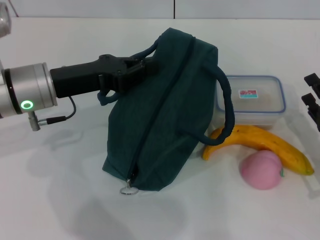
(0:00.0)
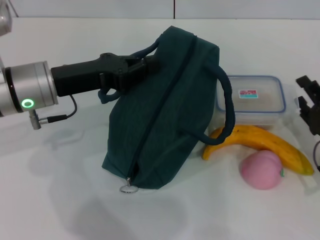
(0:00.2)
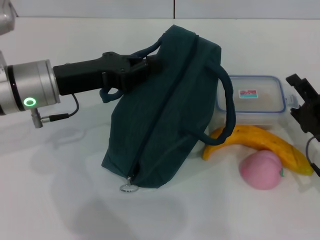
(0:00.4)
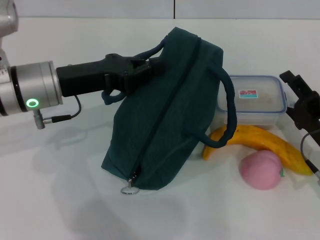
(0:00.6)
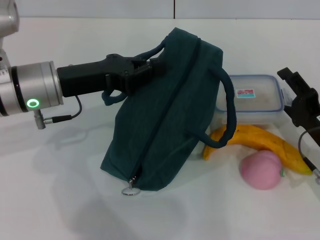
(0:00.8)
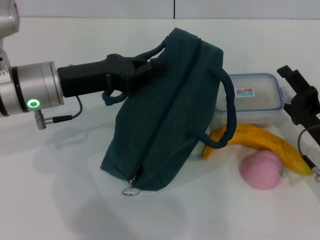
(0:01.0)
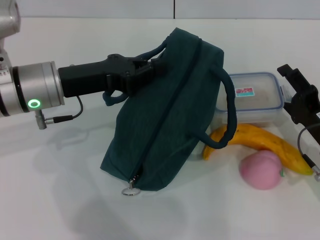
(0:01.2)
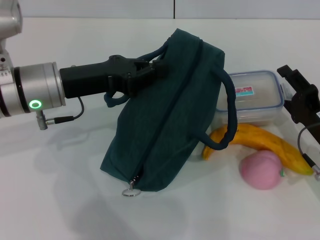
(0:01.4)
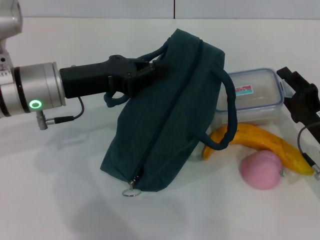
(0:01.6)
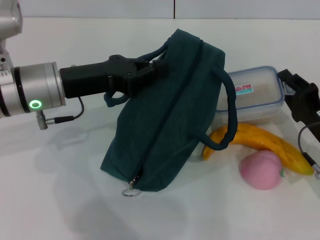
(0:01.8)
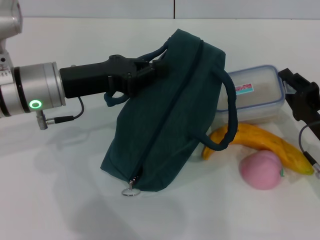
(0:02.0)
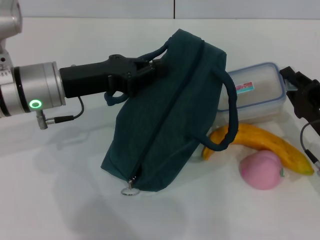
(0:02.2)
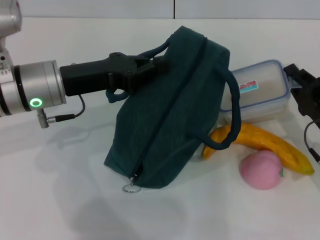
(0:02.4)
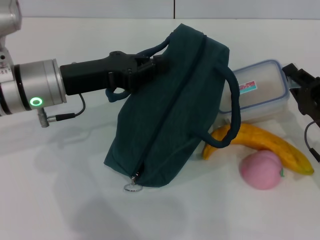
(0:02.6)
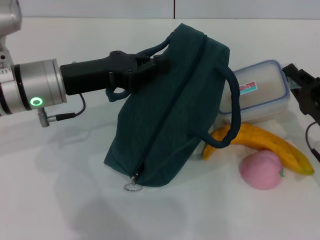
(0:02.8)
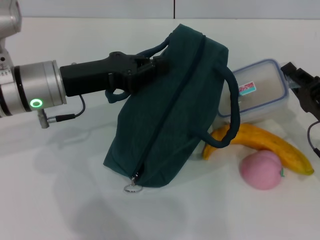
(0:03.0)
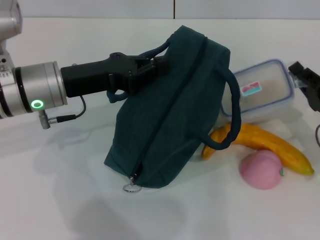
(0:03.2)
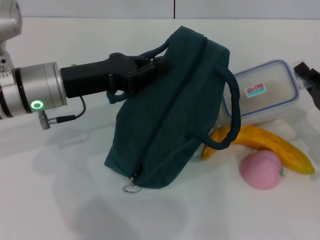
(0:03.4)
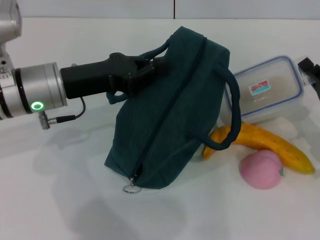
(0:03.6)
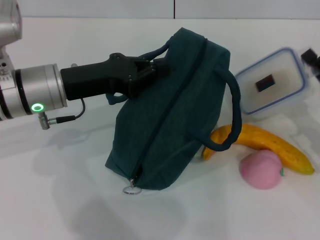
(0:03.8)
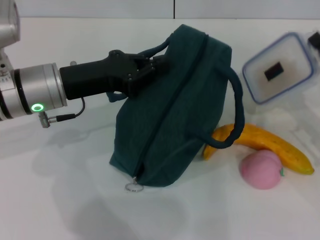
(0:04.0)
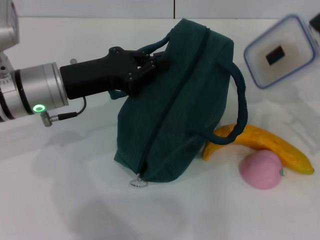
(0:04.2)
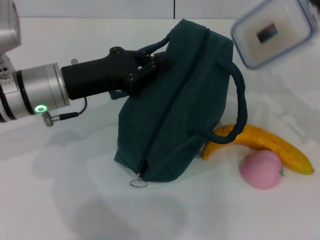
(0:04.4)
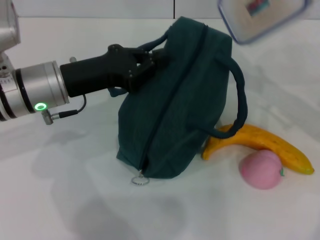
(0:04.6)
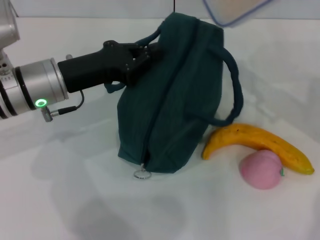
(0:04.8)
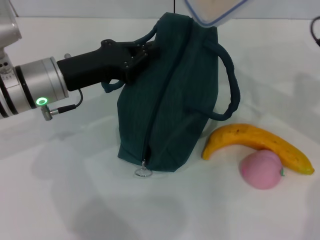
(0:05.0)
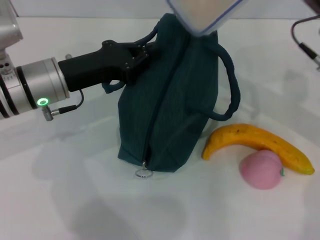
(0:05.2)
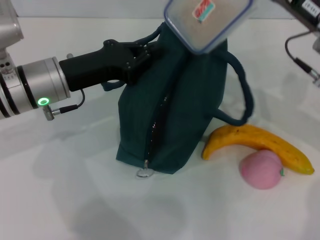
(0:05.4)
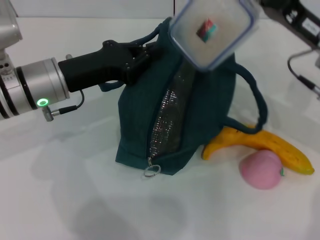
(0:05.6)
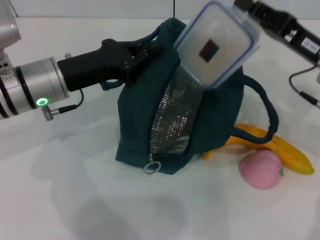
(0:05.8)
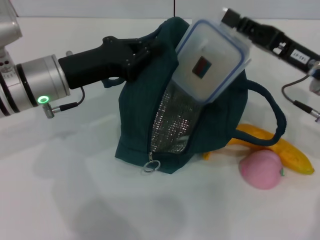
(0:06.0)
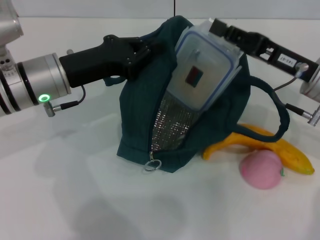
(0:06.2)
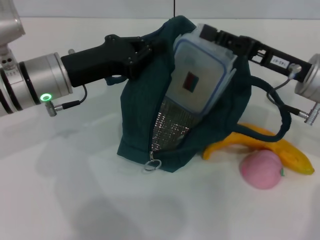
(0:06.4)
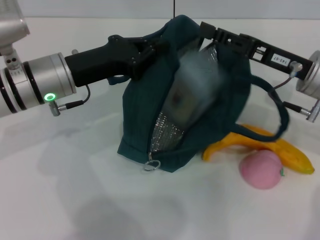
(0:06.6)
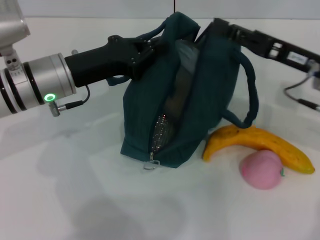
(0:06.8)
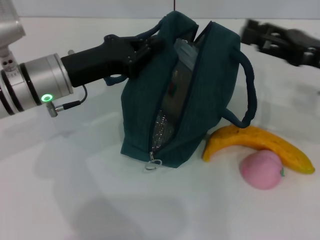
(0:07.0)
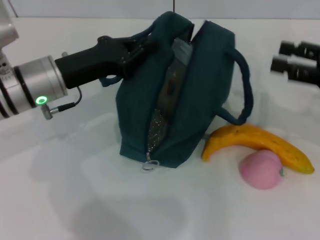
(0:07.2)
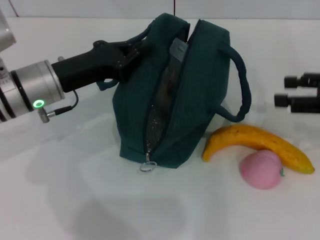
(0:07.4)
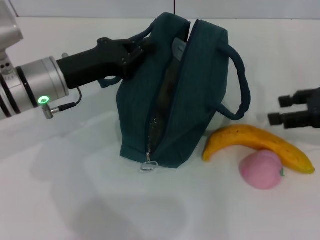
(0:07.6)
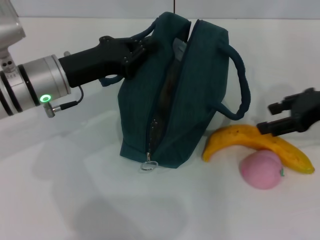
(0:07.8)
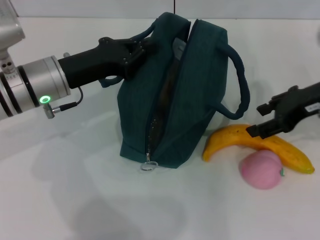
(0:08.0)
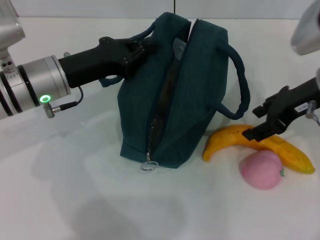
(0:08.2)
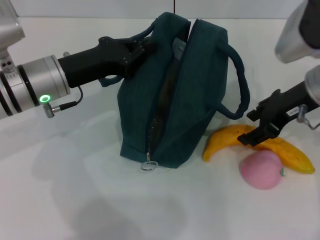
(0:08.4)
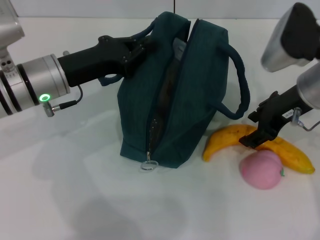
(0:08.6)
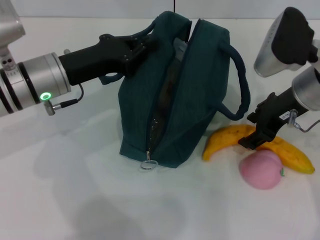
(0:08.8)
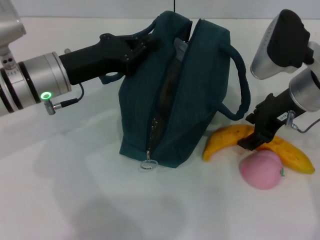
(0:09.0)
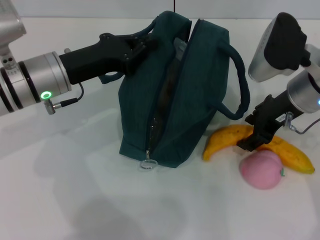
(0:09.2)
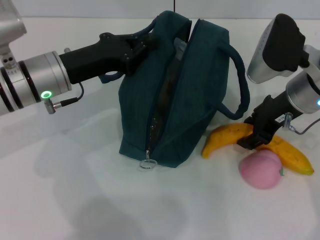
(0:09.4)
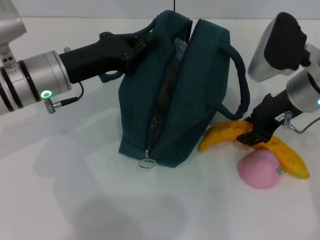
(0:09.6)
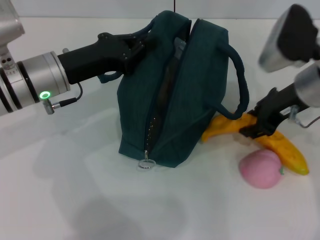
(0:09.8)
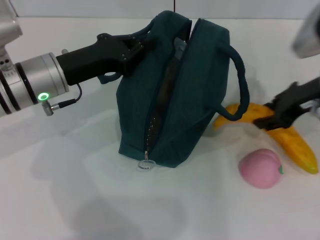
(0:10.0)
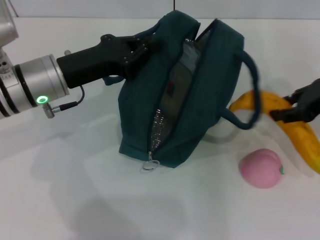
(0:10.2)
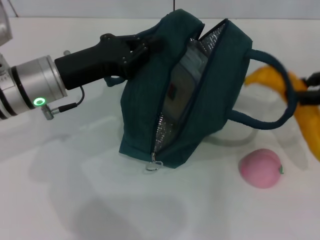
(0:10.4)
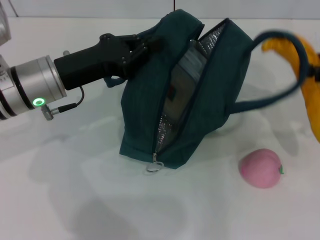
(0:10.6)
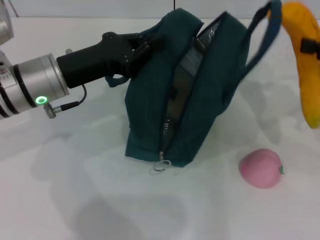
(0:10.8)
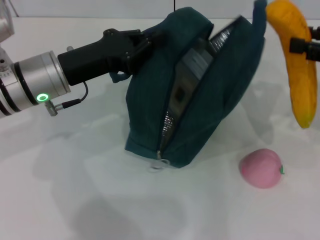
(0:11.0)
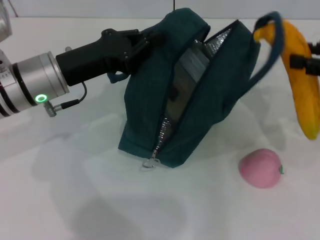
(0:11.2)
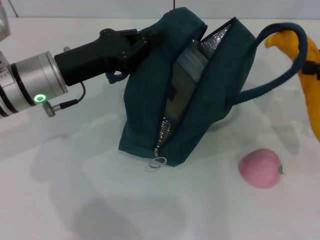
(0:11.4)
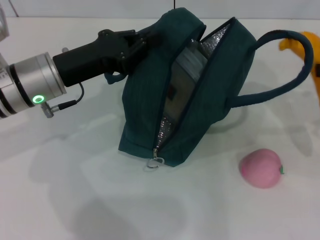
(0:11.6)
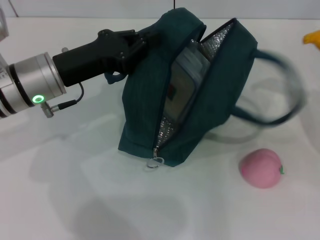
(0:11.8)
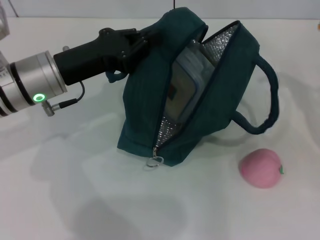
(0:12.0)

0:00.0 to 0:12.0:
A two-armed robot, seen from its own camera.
Step, 0:00.0 to 0:02.2: Pick up the lunch box with your right hand.
Step, 0:02.4 to 0:06.6: Place the lunch box into the lunch bag with your right hand.
Step, 0:06.8 to 0:09.4: Take the banana with your right hand.
0:00.0 to 0:01.6: The grippers move only a little.
0:01.6 to 0:03.0: The right gripper closes.
0:03.0 to 0:04.4: The right gripper goes some 10 cm upward.
0:04.4 to 0:06.0: The right gripper shifts some 5 cm to the left.
0:06.0 to 0:07.6: The right gripper shifts approximately 10 cm to the right, and opens its fingers.
0:07.6 to 0:09.0: The right gripper travels to the left by approximately 15 cm.
0:09.0 to 0:10.4: The right gripper shifts approximately 15 cm to the right.
0:10.4 to 0:12.0: The right gripper travels to the right by approximately 10 cm.

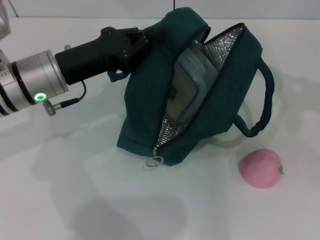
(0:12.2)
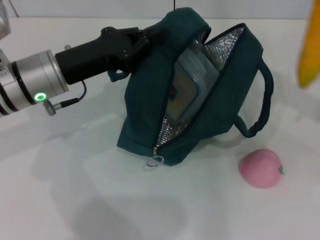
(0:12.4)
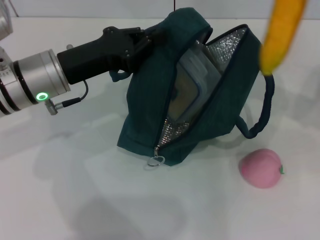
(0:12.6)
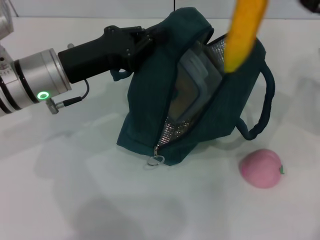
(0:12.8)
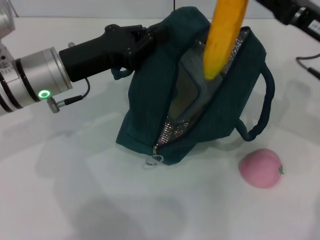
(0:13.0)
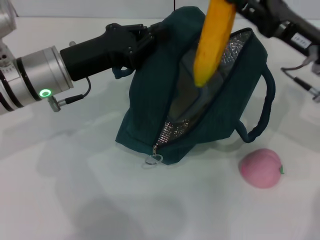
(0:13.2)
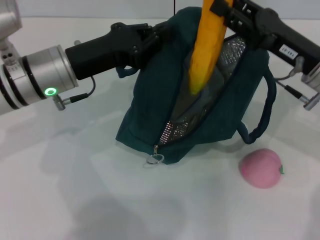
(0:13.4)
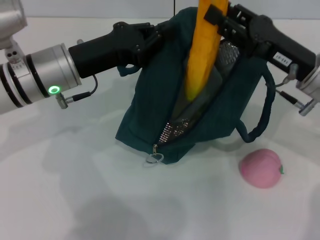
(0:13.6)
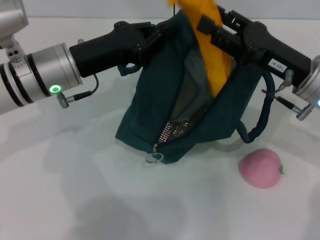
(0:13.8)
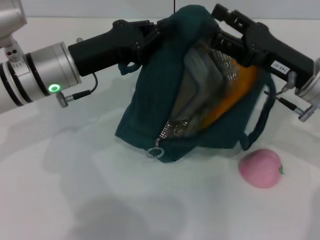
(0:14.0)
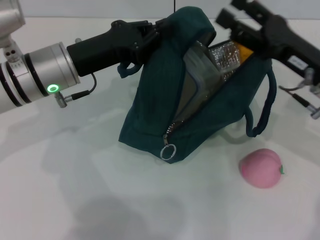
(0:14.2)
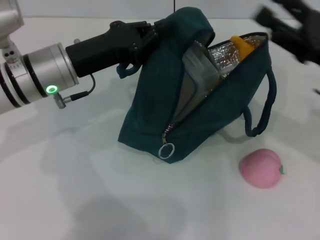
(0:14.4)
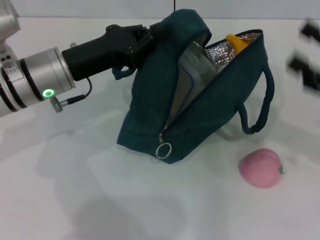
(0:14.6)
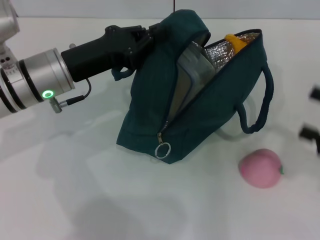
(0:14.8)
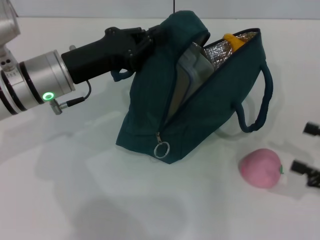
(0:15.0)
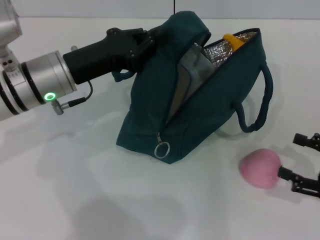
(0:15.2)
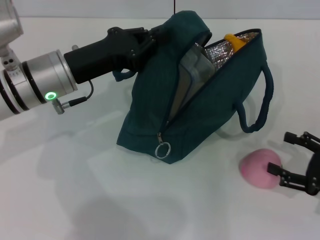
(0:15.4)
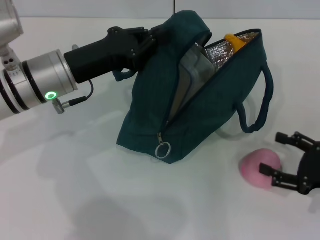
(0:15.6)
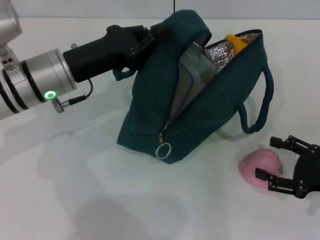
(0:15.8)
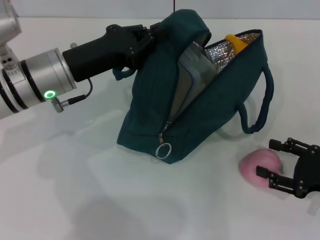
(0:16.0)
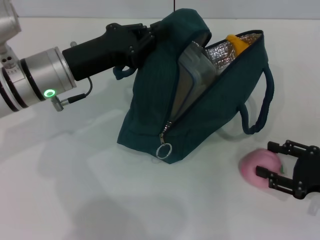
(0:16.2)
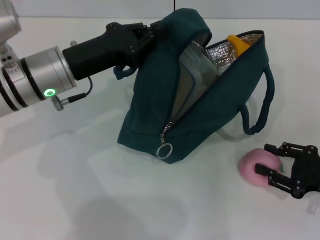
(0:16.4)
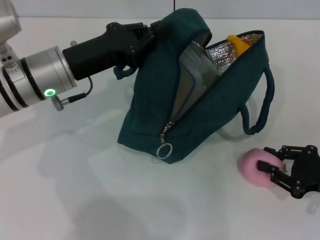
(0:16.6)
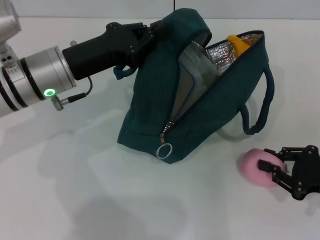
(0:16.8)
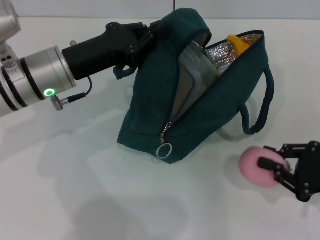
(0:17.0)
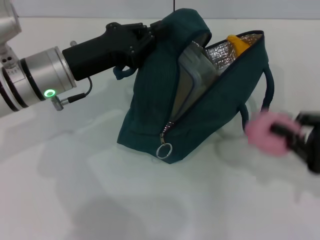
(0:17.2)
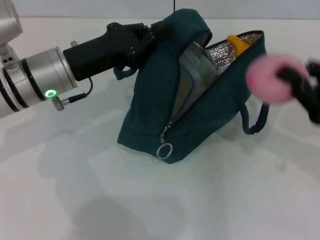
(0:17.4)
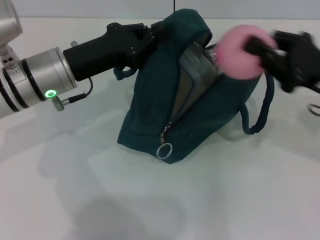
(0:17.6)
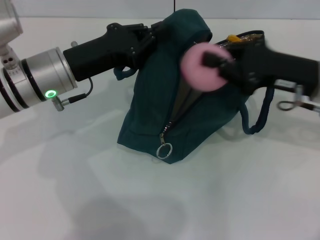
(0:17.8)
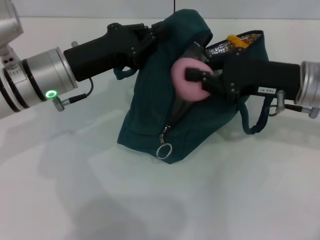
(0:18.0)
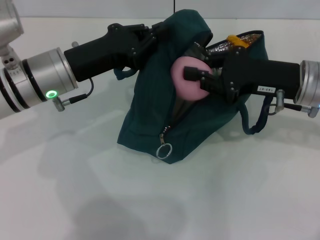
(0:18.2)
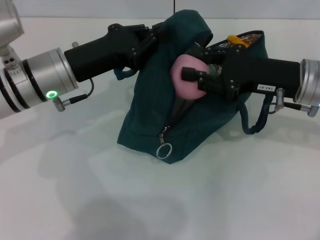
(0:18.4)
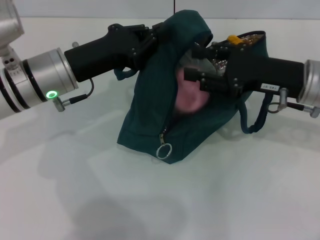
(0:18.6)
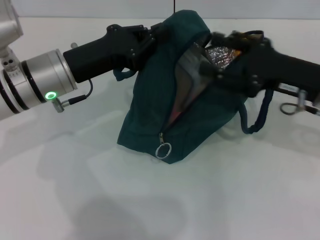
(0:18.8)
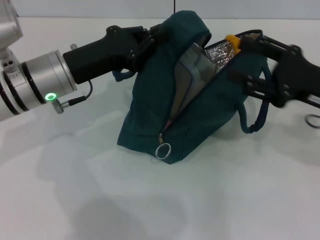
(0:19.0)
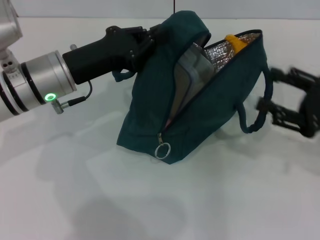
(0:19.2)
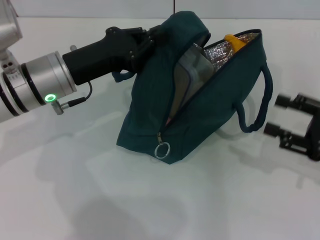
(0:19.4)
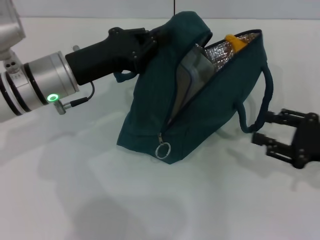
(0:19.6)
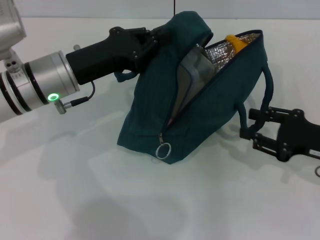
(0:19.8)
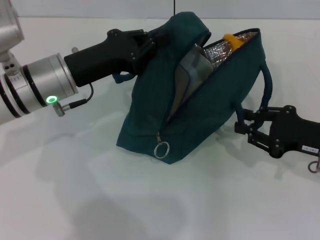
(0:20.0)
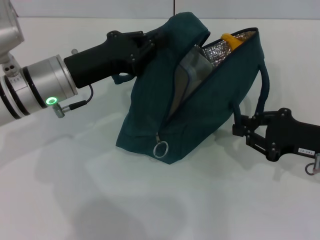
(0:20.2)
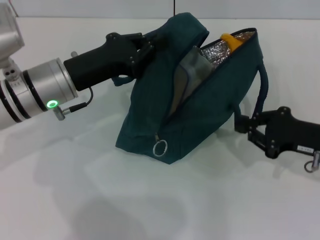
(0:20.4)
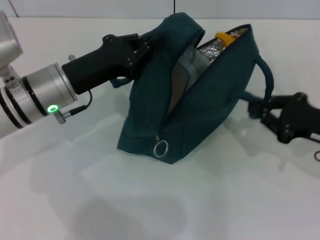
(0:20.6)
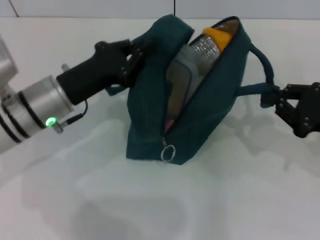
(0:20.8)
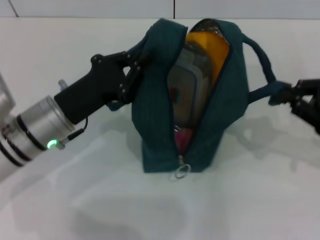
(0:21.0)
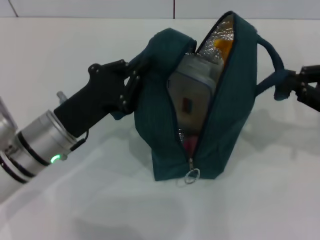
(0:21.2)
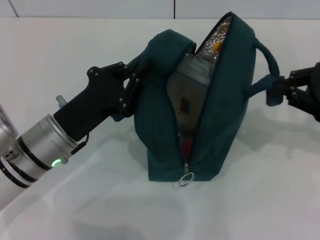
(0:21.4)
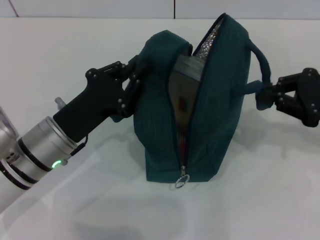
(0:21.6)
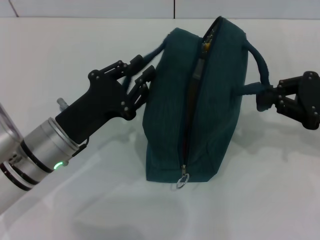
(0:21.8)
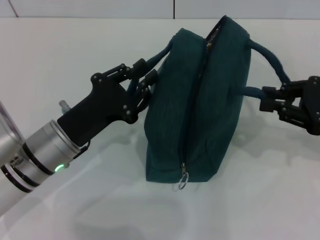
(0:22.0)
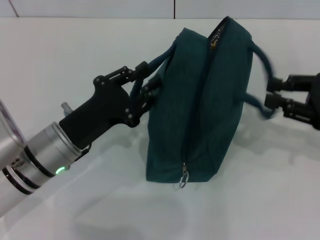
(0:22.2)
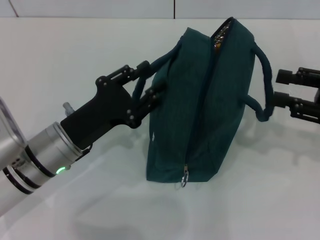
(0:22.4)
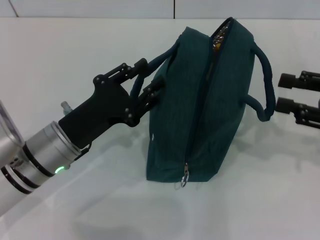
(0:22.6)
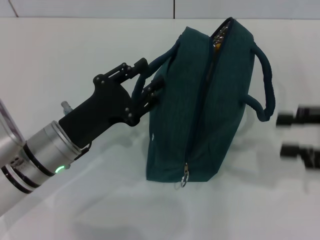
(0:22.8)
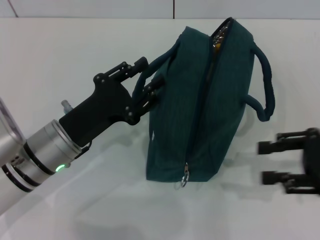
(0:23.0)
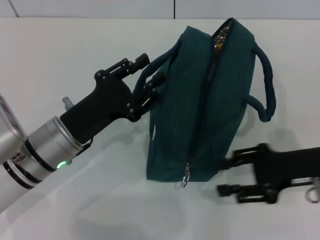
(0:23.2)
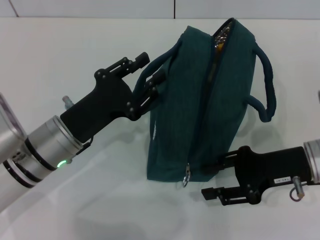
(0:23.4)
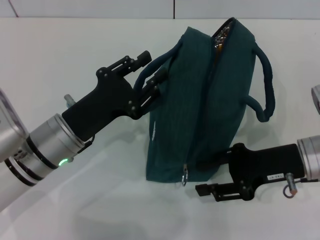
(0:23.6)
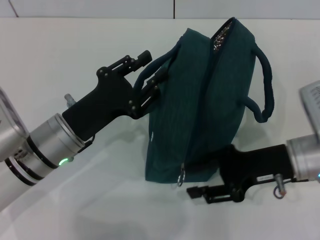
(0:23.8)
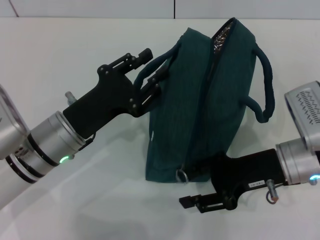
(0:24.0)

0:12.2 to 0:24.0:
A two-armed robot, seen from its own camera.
Step, 0:12.2 to 0:14.2: Put the banana into the lunch bag with your right hand.
Step, 0:14.4 to 0:16.4: Grab the peach with your right hand.
Step, 0:19.2 to 0:21.8: Hold the lunch bag with your left hand.
Step, 0:22.0 to 0:23.2: Hold the lunch bag with your right hand.
0:12.2 to 0:13.6: The right gripper is displaced to the left and downward by about 20 cm.
0:13.6 to 0:15.2: The right gripper goes roughly 20 cm to the right, backward and downward, and opens up.
0:15.2 to 0:16.6: The right gripper closes its fingers.
0:16.6 to 0:18.2: The right gripper shifts some 20 cm forward, upward and to the left, and closes up.
0:18.2 to 0:19.6: The right gripper is displaced to the right, backward and downward by roughly 15 cm, and opens.
0:19.6 to 0:21.0: The left gripper changes place by about 5 cm, while the right gripper ends up some 5 cm from where it was, and closes.
0:21.0 to 0:22.6: The left gripper opens. Meanwhile the right gripper opens.
0:22.6 to 0:24.0: The right gripper heads to the left and downward, covering approximately 15 cm.
